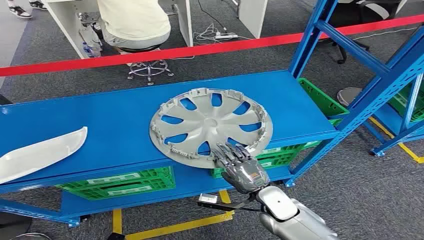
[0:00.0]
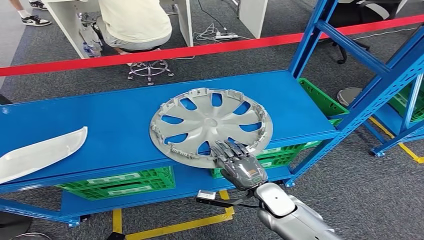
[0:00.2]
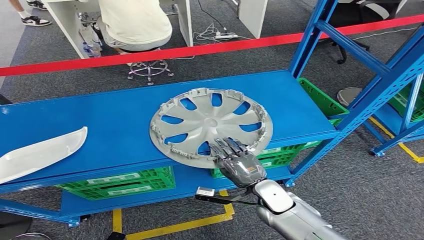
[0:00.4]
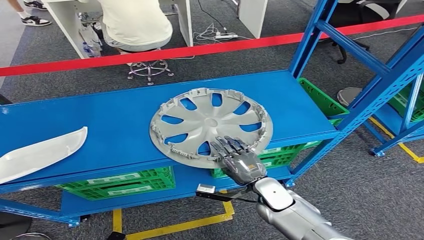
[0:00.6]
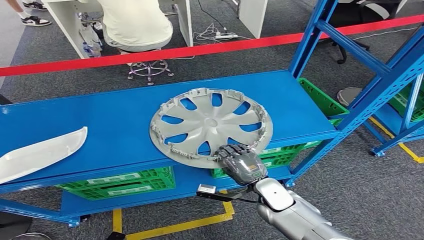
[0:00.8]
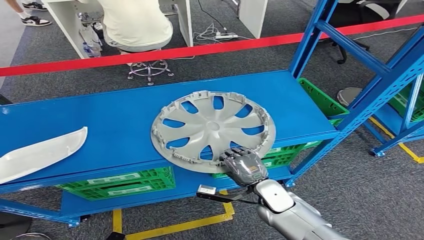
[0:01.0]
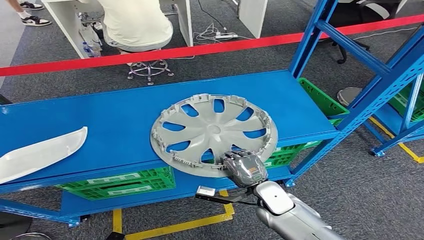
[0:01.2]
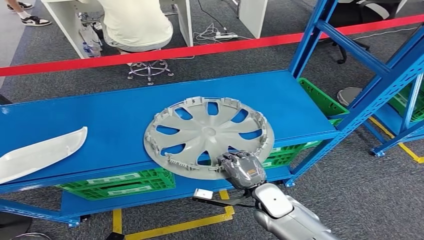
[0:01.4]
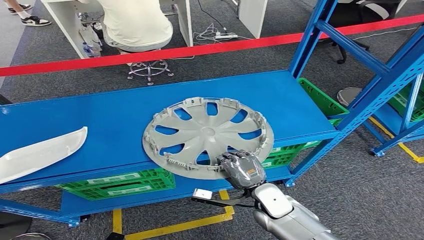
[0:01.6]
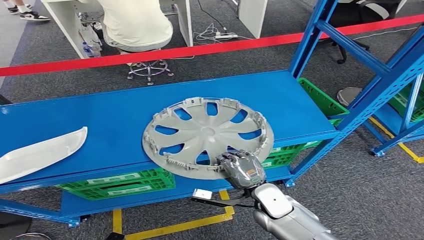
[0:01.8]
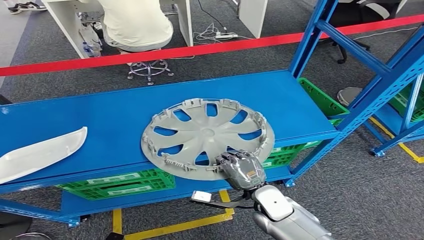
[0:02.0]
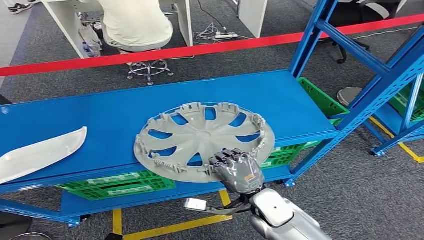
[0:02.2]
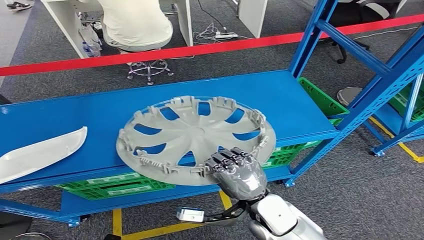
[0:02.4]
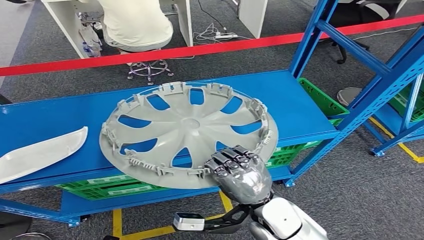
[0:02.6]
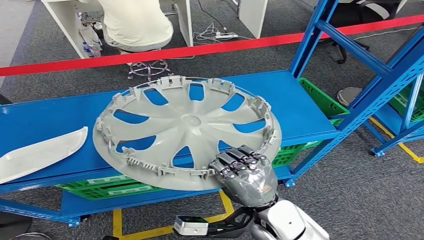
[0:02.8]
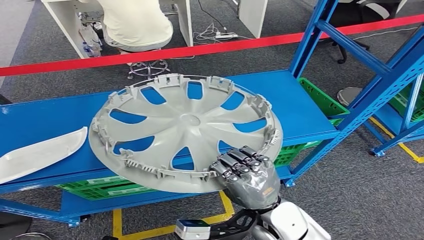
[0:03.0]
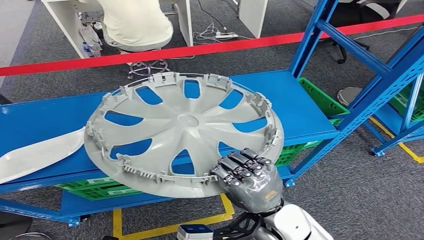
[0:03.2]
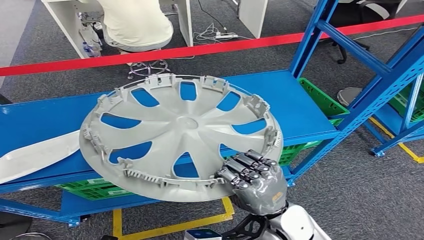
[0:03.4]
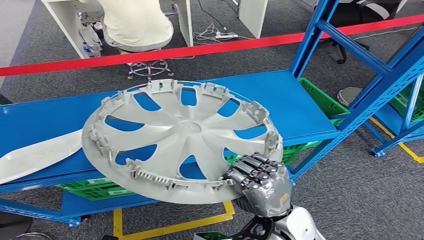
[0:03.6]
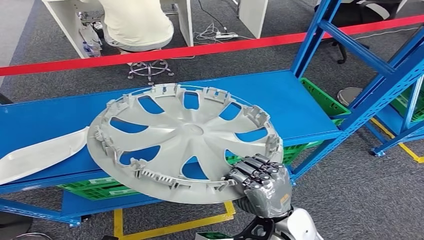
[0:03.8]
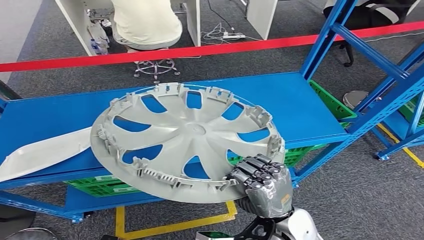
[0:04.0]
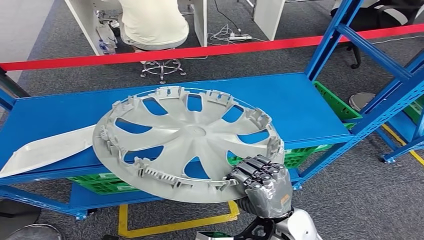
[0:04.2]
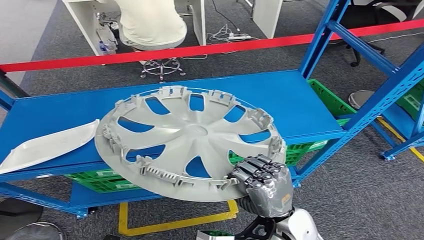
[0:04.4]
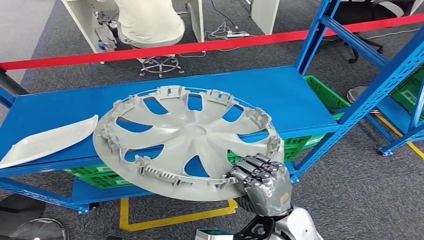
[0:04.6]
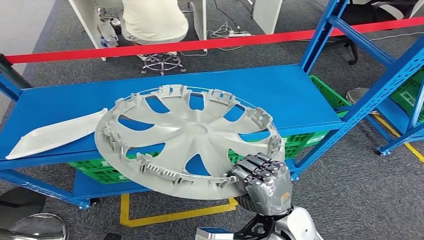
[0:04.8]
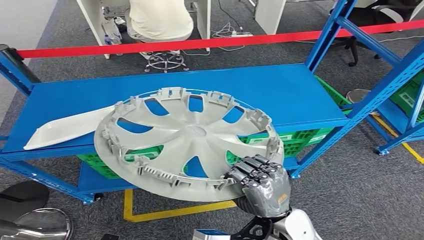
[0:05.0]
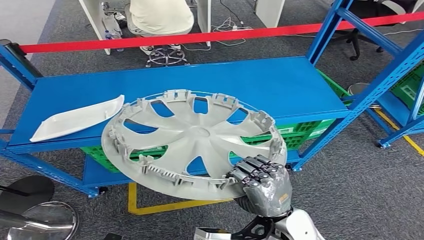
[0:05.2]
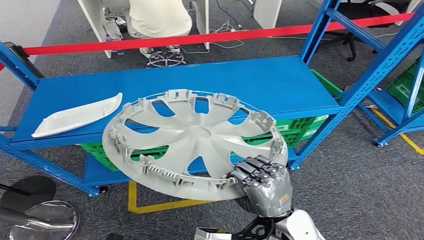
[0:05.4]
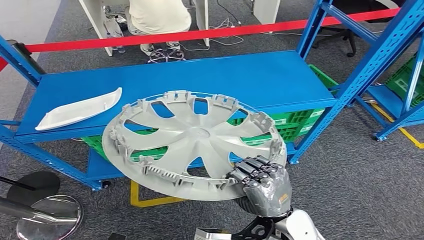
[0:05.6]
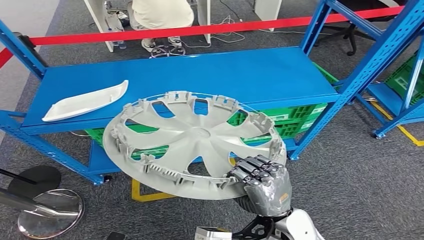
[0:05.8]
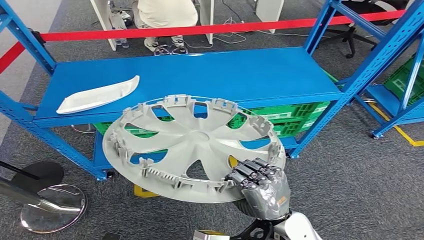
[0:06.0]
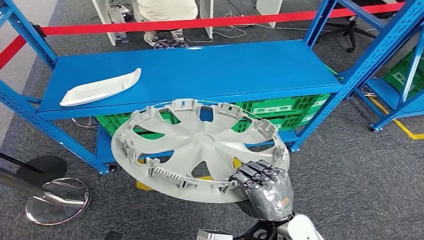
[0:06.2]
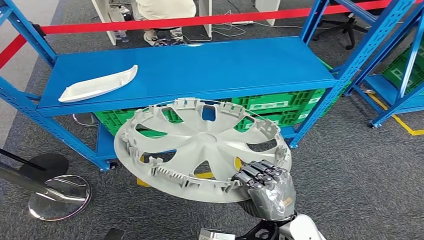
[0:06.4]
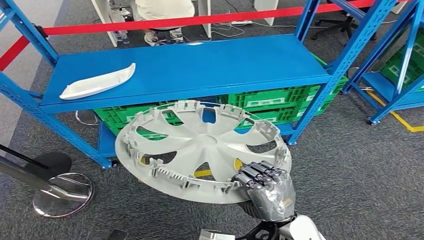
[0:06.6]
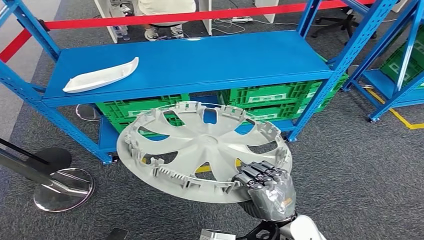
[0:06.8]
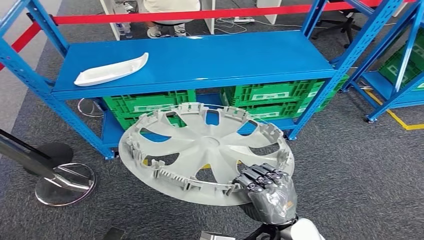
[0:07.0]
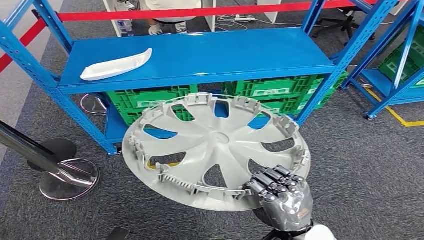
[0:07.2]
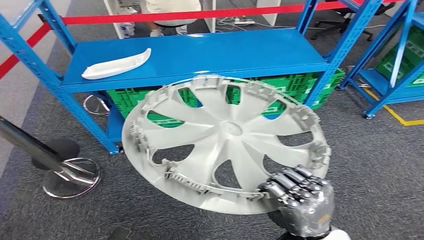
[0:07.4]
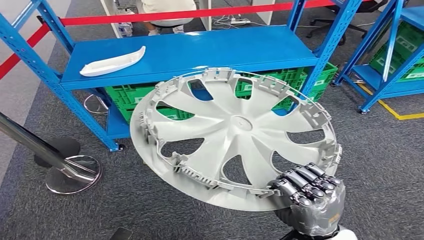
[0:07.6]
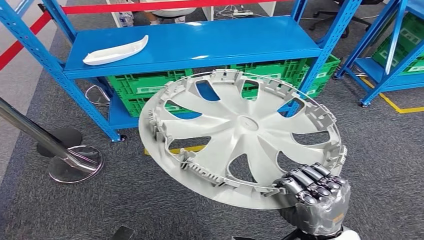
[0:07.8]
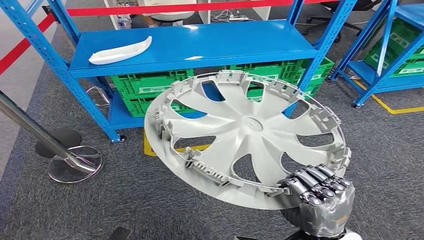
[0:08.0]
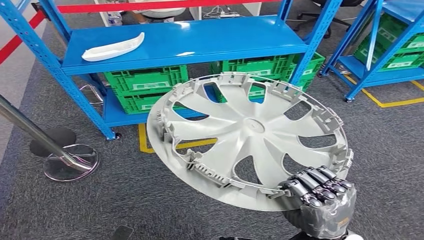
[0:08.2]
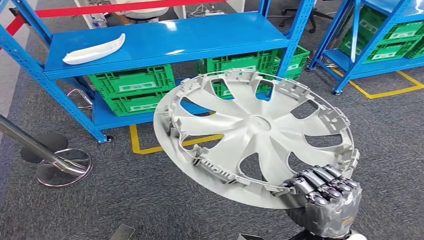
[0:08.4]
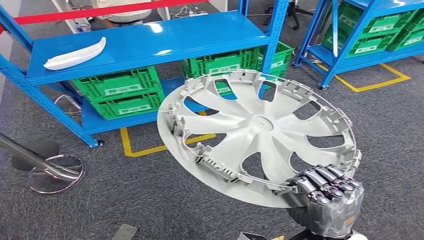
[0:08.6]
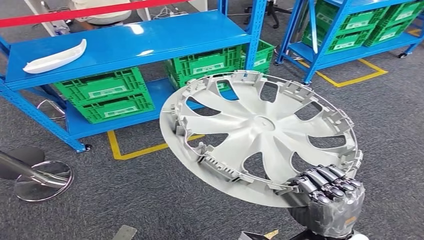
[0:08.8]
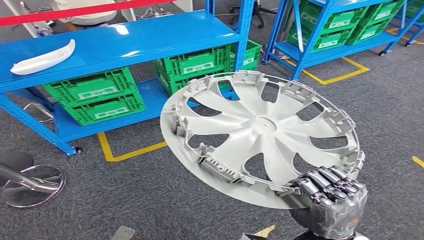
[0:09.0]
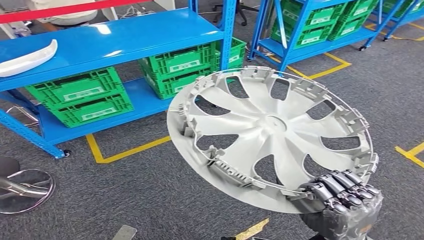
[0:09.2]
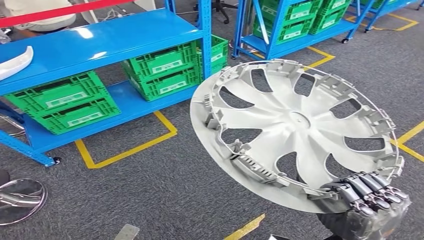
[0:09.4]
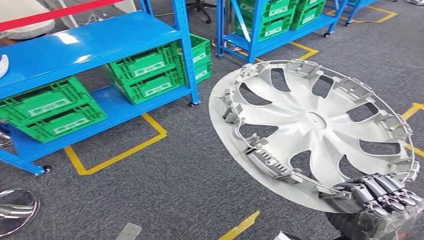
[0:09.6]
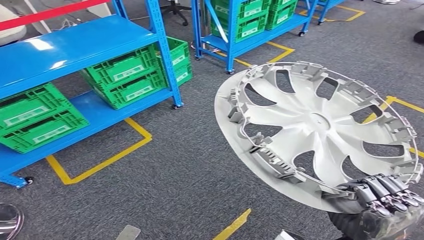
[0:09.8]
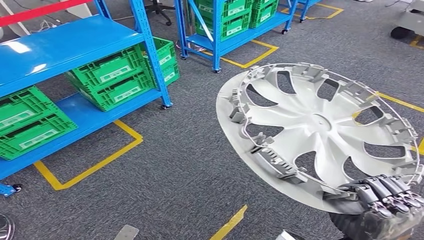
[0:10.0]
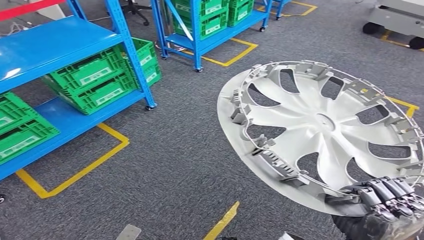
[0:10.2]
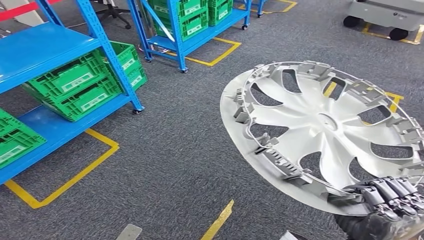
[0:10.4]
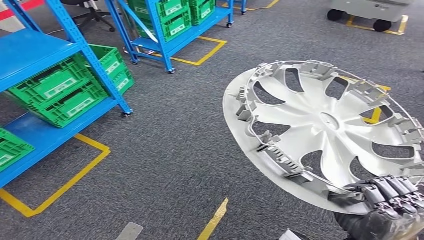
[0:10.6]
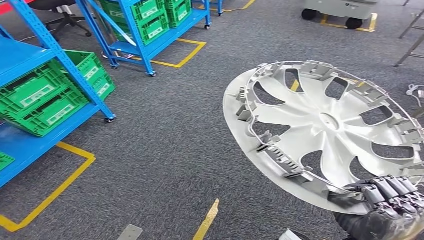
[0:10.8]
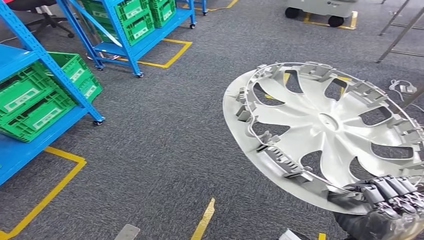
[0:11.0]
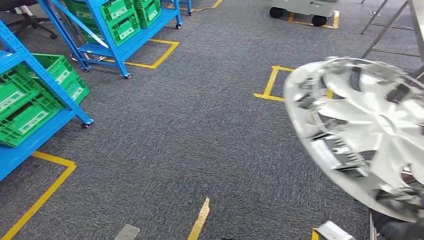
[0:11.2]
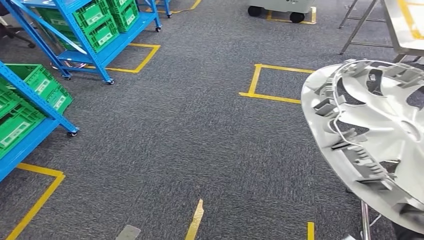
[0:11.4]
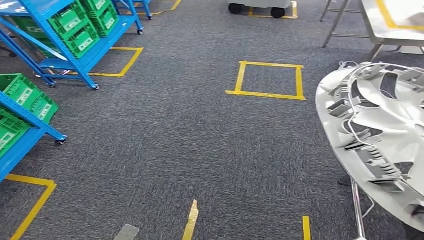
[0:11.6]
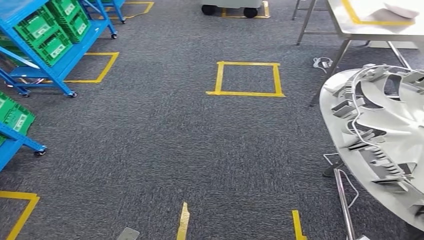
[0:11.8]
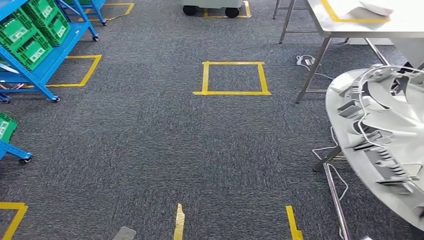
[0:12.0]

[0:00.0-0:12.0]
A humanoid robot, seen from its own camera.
Step, 0:00.0 to 0:03.8: Pick up the small component from the shelf.
0:01.6 to 0:03.0: The right hand shifts some 15 cm upward and backward.

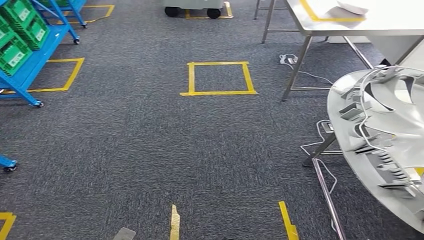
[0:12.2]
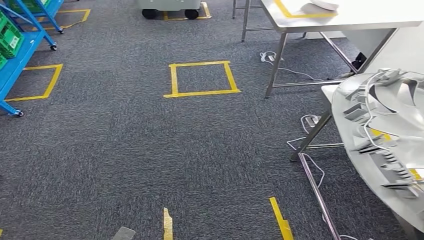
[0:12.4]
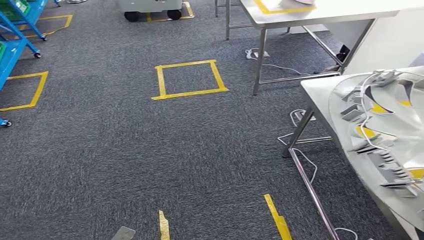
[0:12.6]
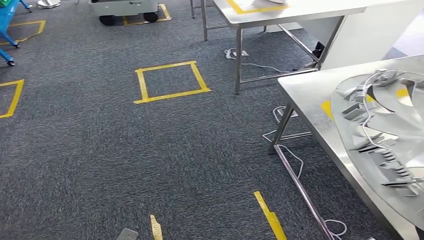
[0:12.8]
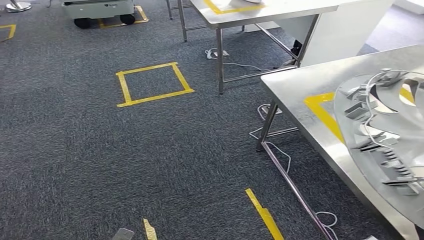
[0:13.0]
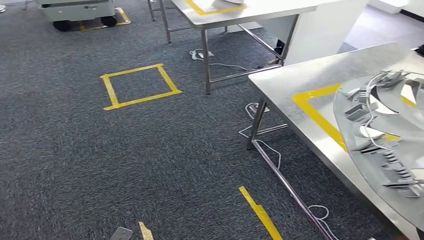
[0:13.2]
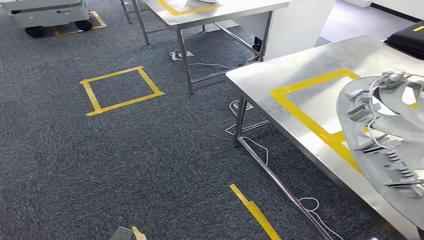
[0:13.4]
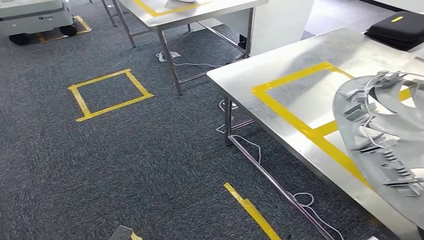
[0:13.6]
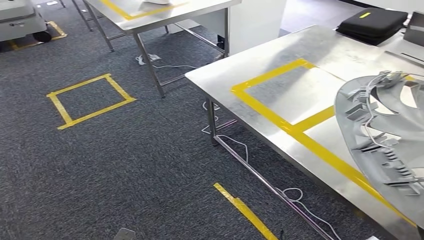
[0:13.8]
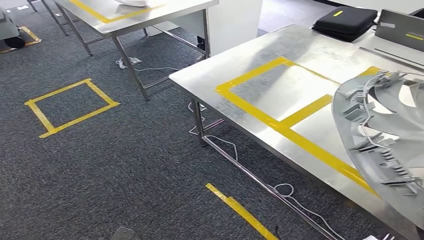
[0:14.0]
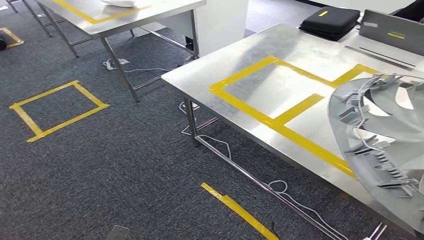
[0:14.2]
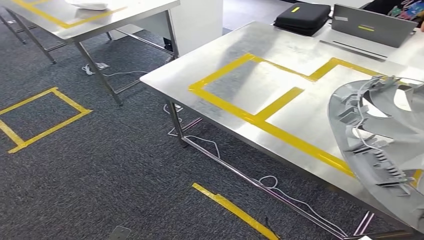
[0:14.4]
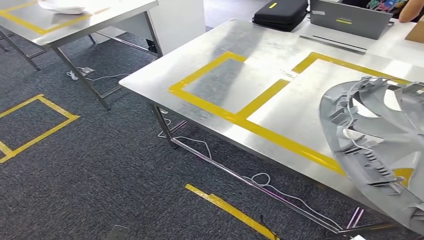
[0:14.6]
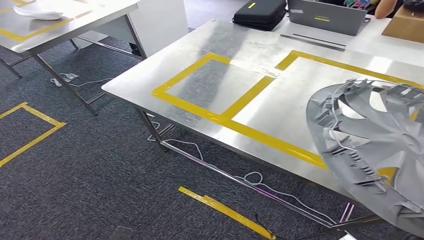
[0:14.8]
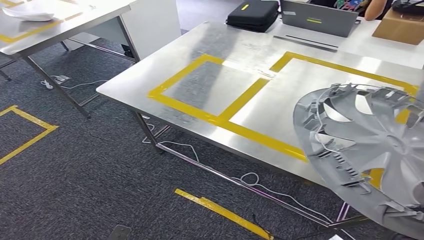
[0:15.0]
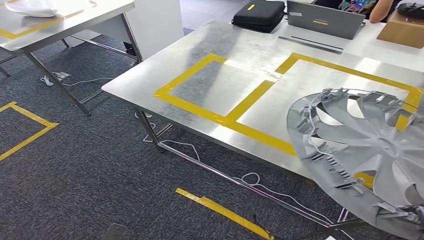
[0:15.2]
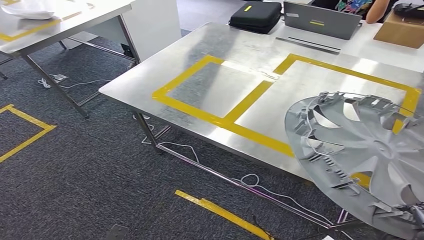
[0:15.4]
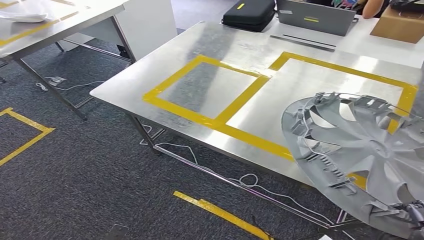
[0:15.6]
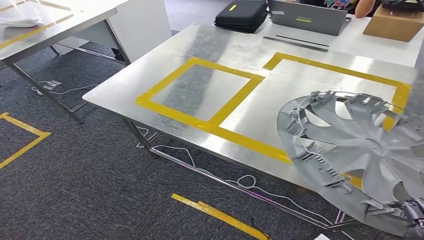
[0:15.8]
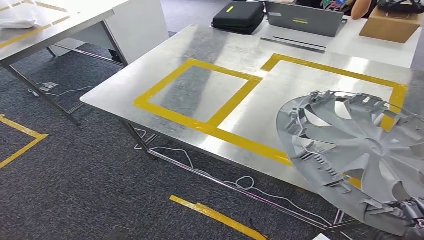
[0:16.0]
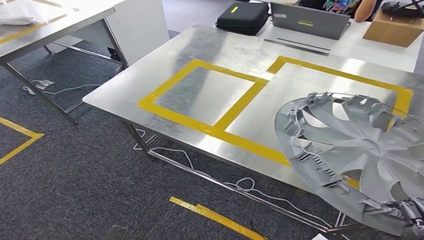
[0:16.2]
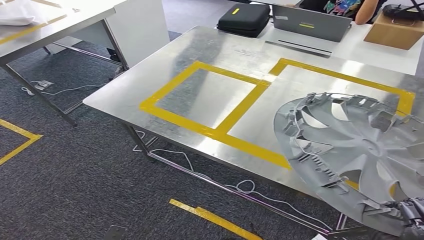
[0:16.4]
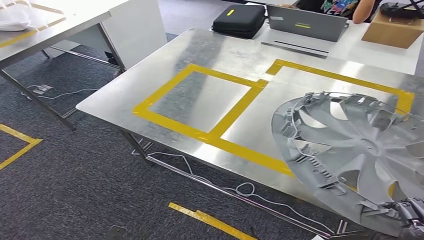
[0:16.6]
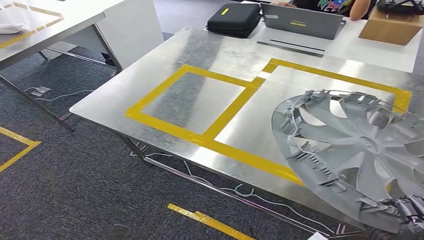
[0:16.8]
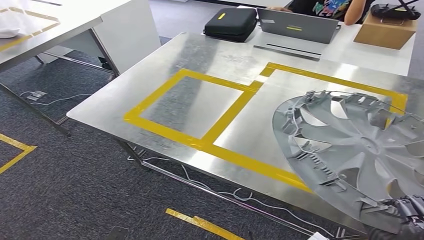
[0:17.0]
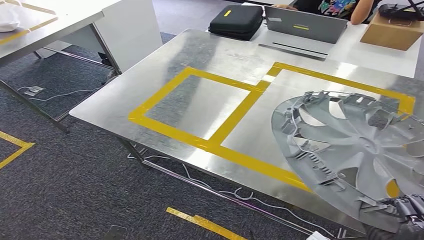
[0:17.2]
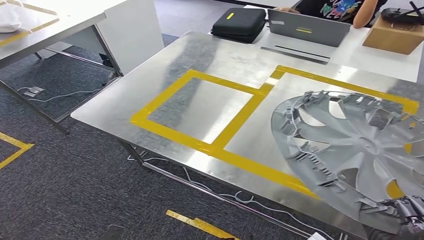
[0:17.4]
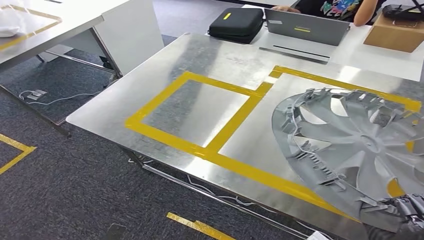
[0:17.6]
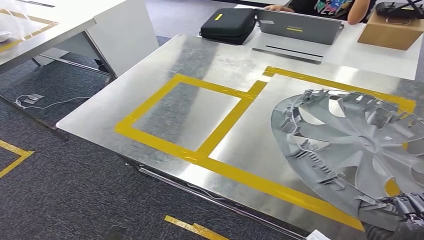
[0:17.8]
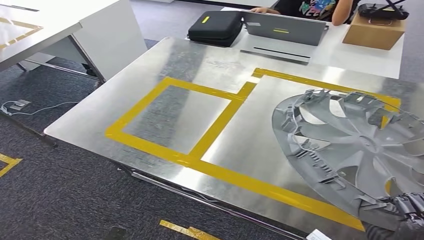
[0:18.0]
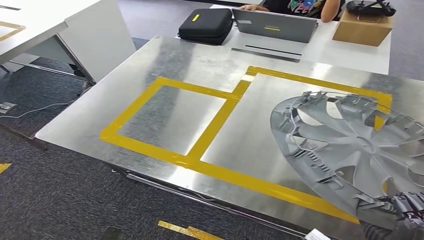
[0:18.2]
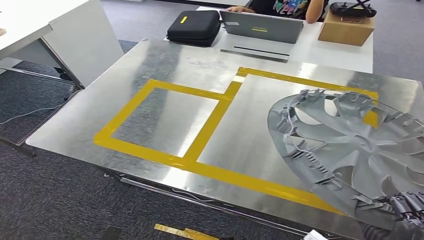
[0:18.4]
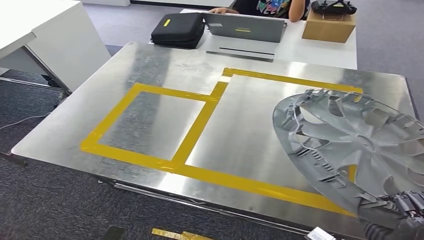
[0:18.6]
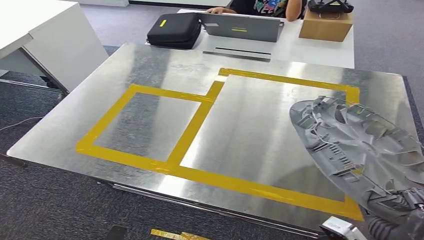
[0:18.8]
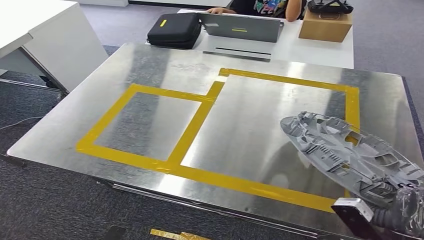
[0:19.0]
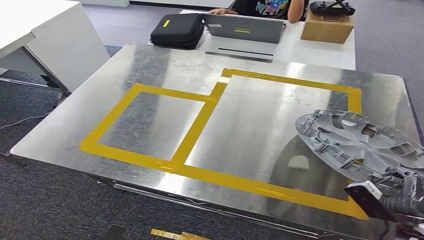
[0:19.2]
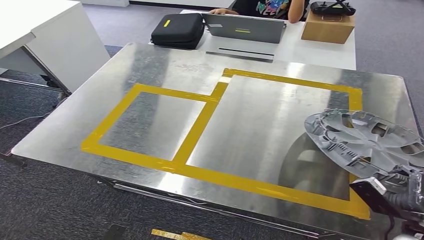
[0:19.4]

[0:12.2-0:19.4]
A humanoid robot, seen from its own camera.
Step, 0:12.2 to 0:17.0: Bring the small component to the front of the workbench.
